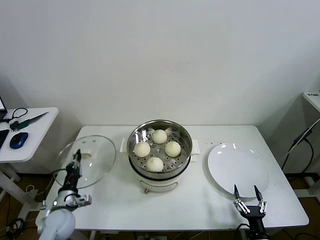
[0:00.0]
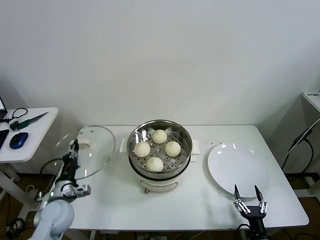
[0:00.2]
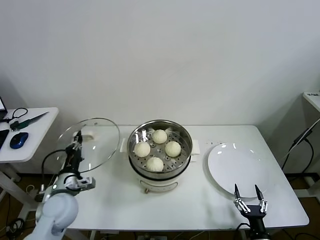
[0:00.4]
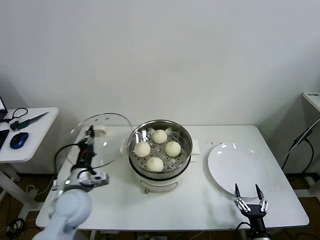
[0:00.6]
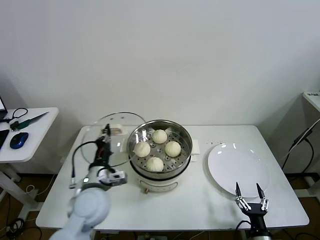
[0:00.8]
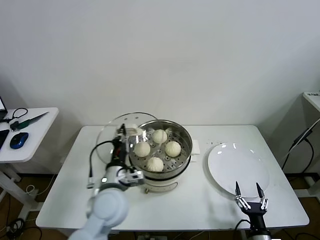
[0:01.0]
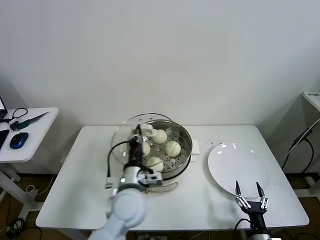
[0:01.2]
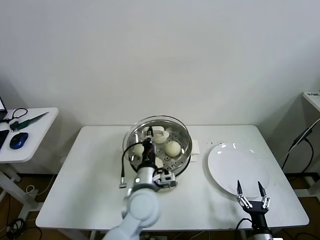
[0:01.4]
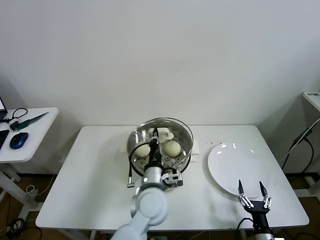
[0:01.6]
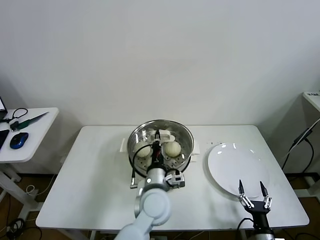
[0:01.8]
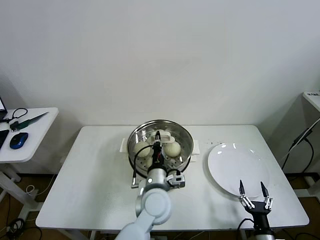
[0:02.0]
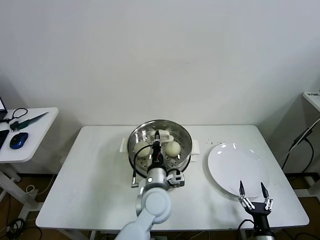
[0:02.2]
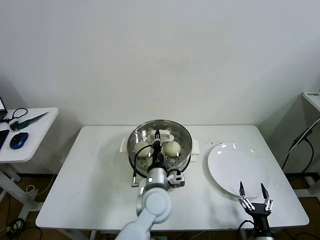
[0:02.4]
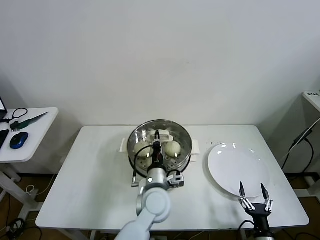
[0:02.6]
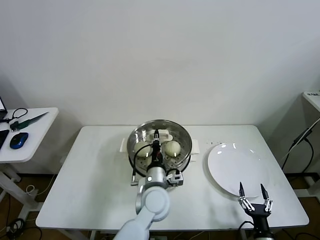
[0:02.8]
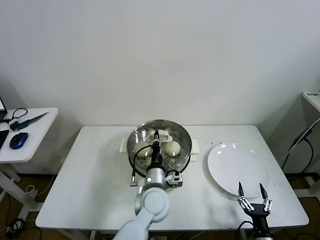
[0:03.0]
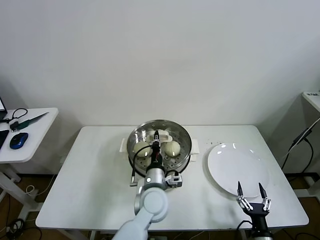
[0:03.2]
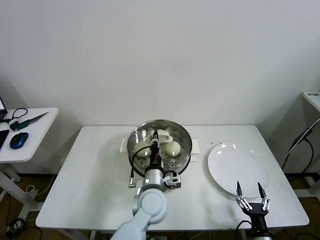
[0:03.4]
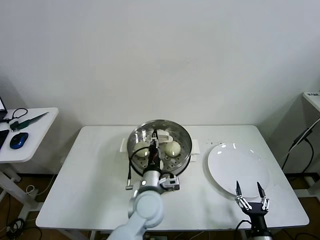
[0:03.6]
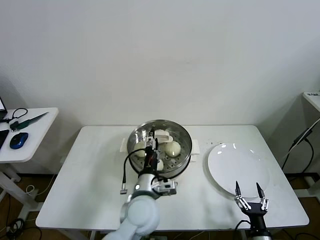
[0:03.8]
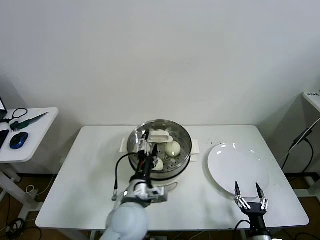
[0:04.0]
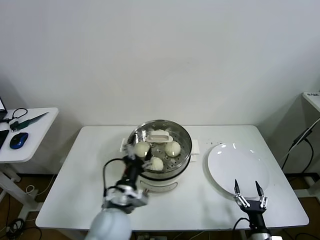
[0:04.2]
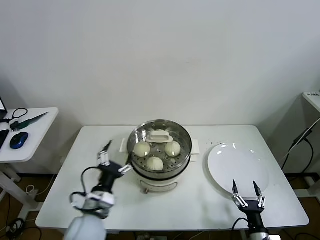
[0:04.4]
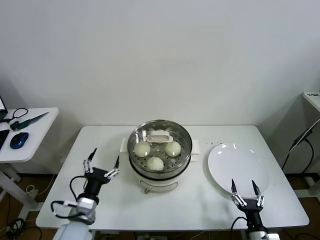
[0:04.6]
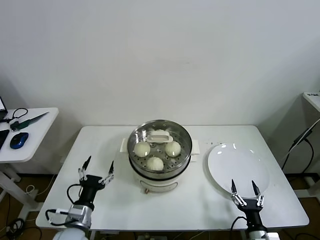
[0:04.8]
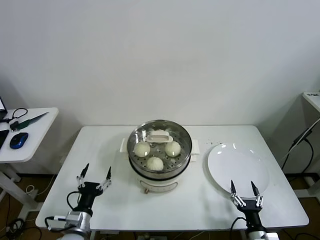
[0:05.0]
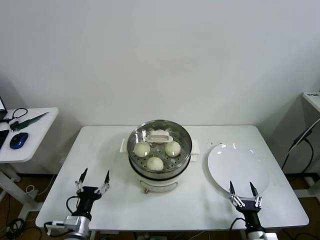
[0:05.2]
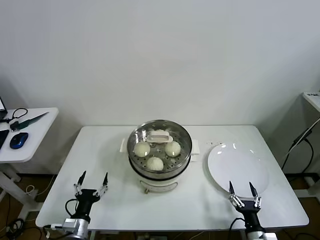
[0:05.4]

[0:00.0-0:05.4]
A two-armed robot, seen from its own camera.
Task of the whole recording: take steamed baozi put them in steamer then cover it.
Step, 0:00.0 to 0:03.4: Place the pot lid on the steamer with left gripper.
0:00.0 to 0:01.4: The left gripper goes roughly 35 cm to the right and upward.
0:01.4 to 0:02.8: The left gripper changes place by about 5 cm.
0:02.8 to 0:04.0: The left gripper goes approximately 10 cm backward and to the left, and opens its fingers.
0:04.0 to 0:05.4: The left gripper is displaced to the left and downward by about 25 cm.

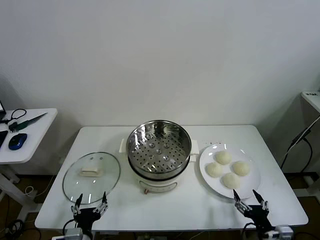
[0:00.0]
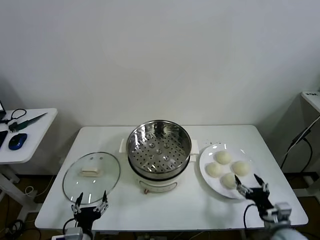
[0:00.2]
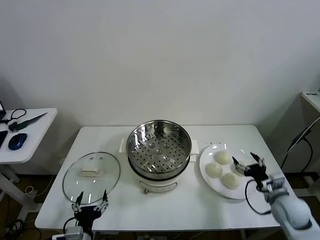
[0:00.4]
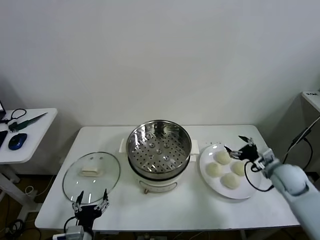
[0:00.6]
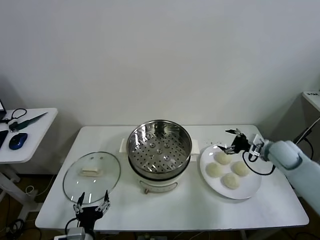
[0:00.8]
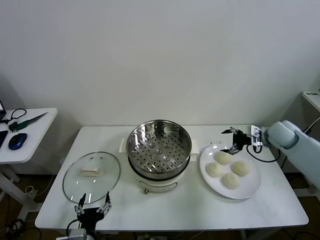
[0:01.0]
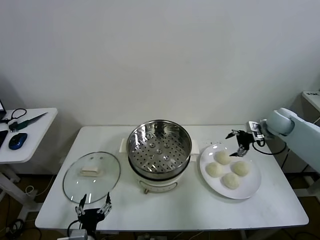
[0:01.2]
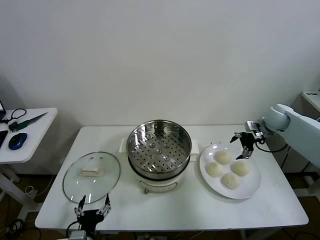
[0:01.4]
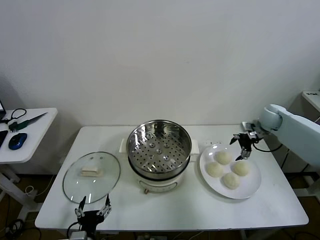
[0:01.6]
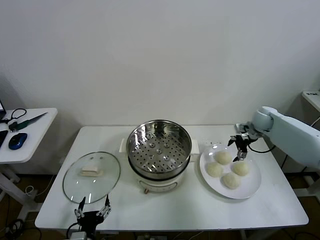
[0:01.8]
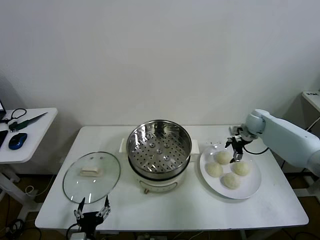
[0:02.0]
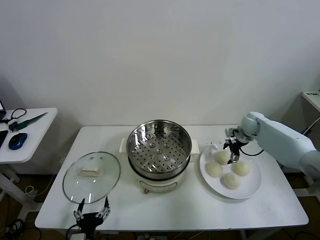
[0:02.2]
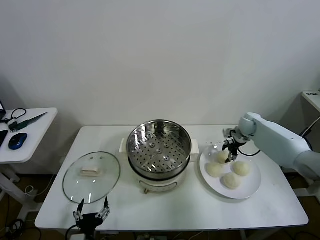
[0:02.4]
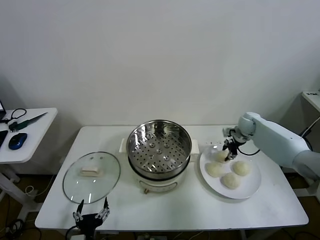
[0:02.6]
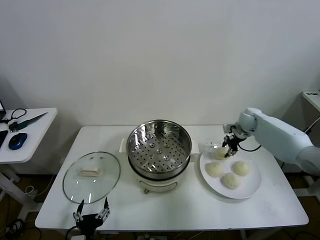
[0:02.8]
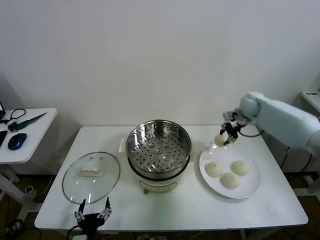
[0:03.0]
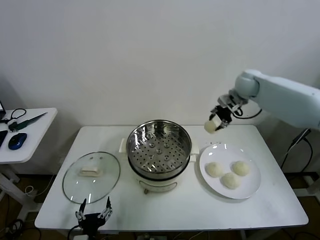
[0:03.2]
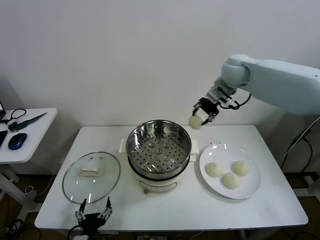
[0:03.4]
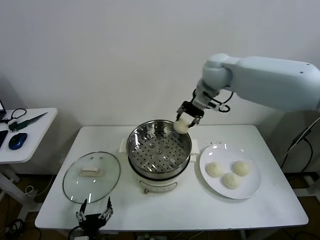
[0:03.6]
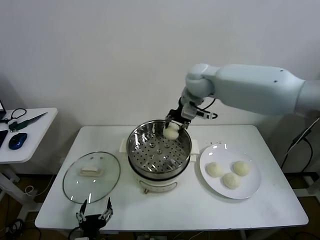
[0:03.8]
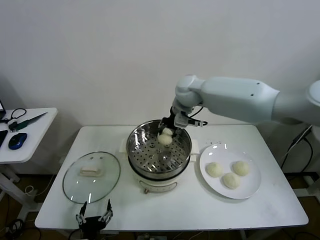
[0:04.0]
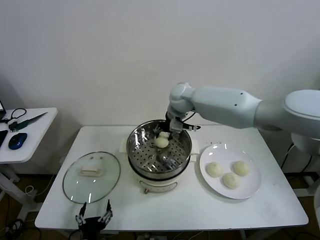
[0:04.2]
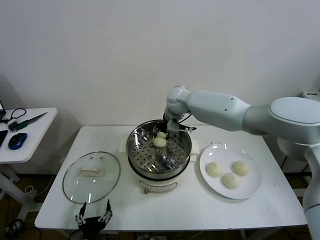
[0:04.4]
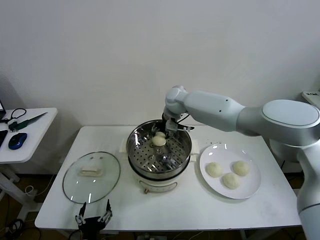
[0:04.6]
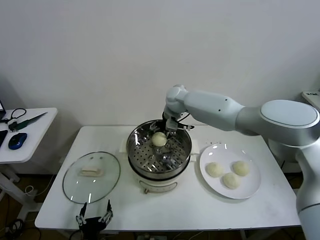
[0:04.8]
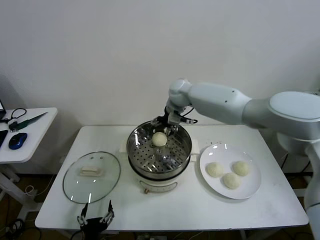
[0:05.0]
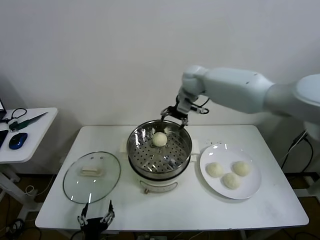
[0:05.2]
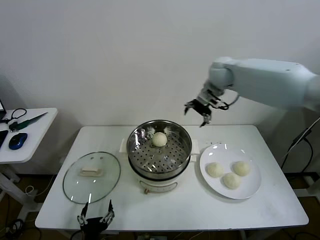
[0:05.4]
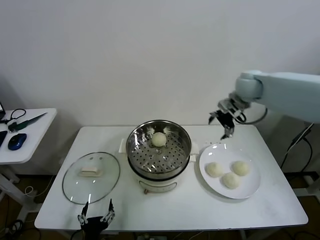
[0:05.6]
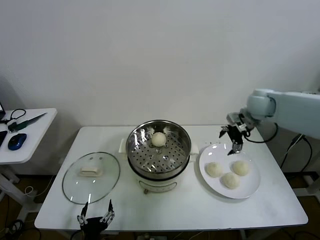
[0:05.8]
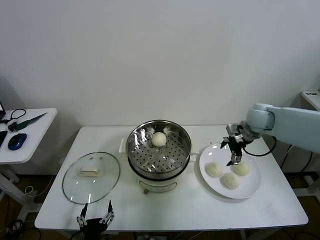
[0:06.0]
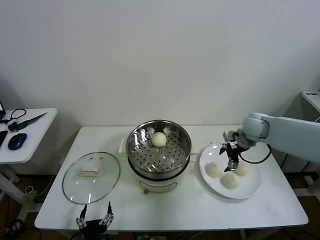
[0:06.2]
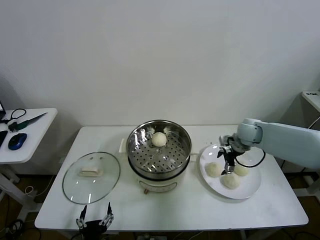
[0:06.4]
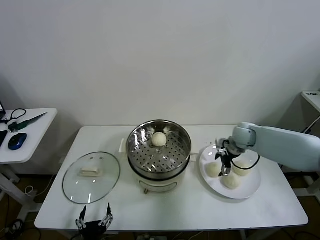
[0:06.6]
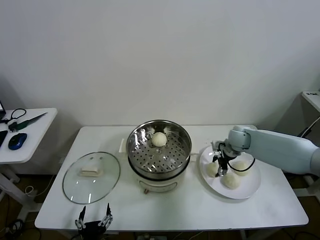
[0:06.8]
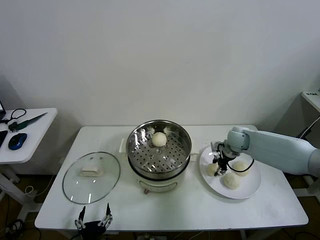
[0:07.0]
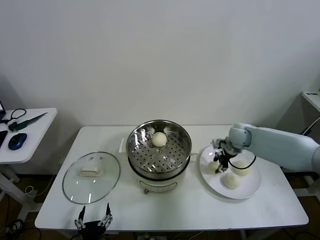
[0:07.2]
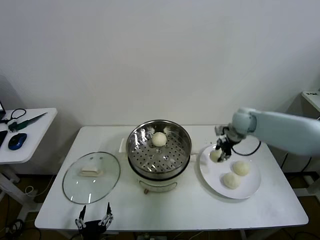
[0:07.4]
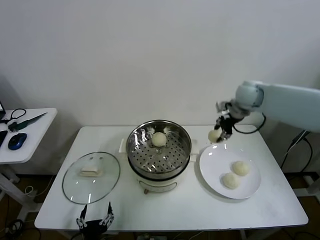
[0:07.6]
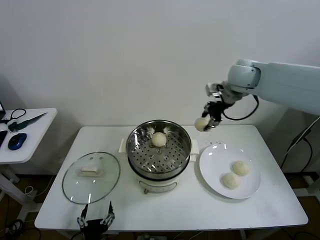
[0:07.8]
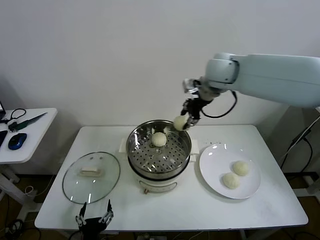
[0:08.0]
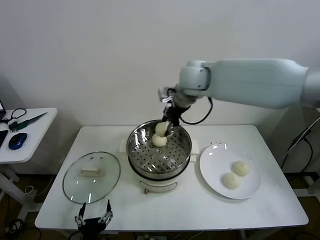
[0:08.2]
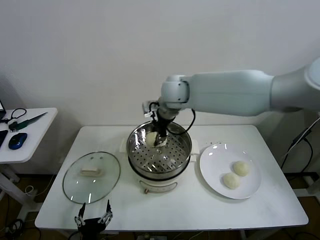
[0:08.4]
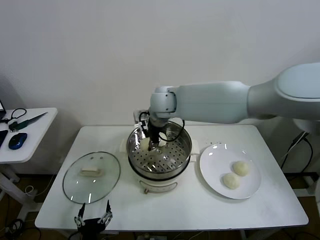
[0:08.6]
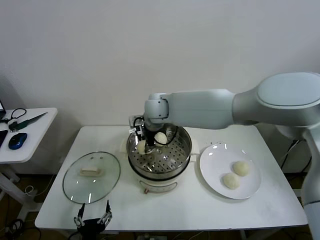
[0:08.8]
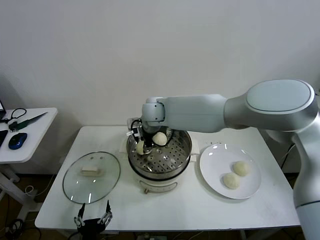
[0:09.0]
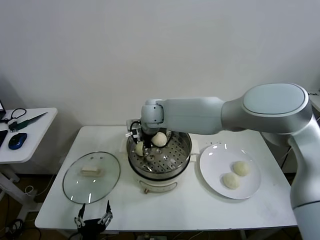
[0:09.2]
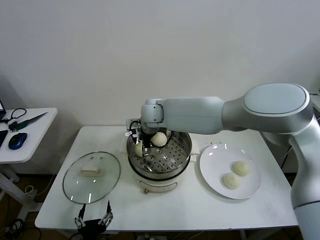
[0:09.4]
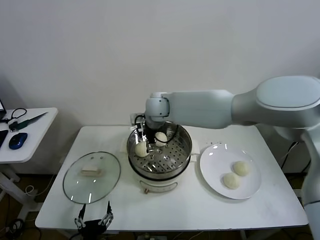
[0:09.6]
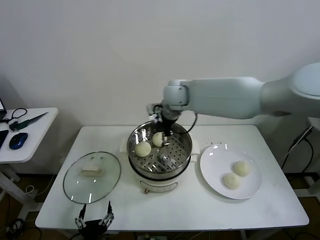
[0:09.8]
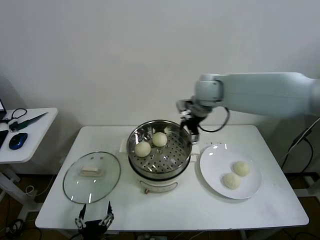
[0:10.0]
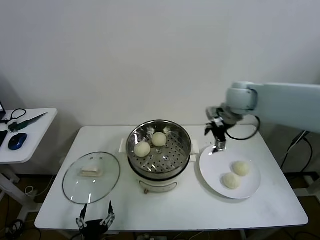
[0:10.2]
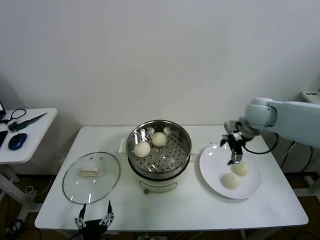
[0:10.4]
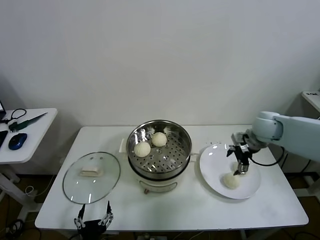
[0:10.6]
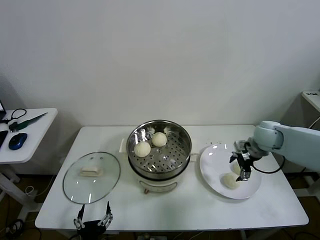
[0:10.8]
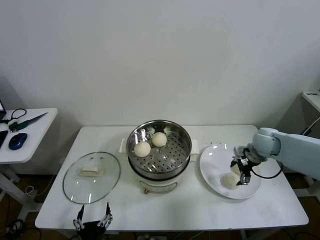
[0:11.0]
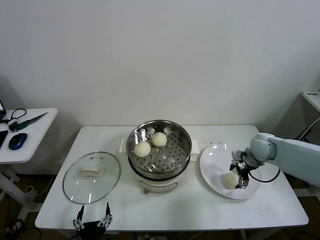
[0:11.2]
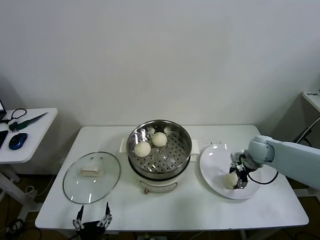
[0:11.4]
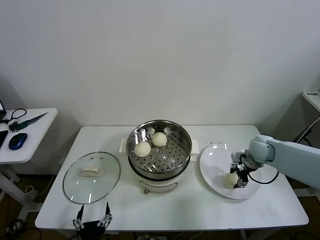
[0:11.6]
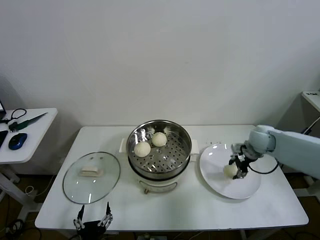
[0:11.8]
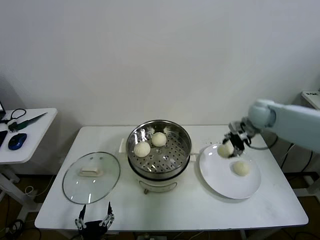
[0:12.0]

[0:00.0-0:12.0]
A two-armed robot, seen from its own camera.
Task of the whole recording: take steamed baozi put them in steamer then cover it.
Step, 0:00.0 to 0:02.6: Grasp the baozi in the plate with right gripper.
Step, 0:02.8 to 0:04.8: Place the baozi on the steamer with right gripper.
Step, 0:05.0 to 0:07.0: Grasp the baozi in the plate with right gripper.
Step, 0:07.2 to 0:09.4: Place the baozi on the steamer with right gripper.
Step, 0:09.6 to 0:11.4: Grasp the baozi in the plate with right gripper.
0:01.6 to 0:03.0: The right gripper is displaced upward and to the left by about 10 cm, and closes up.
0:03.0 to 0:04.4: The right gripper is displaced to the left by some 25 cm.
0:04.4 to 0:06.0: The right gripper heads to the right, covering roughly 30 cm, and opens.
0:06.0 to 0:07.6: The right gripper moves upward and to the left, some 15 cm, and closes up.
0:07.6 to 0:09.0: The right gripper moves to the left, about 30 cm.
0:09.0 to 0:10.4: The right gripper is displaced to the right by roughly 35 cm, and opens its fingers.
0:10.4 to 0:12.0: The right gripper moves roughly 15 cm downward and comes back, and closes its fingers.

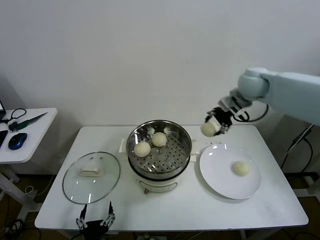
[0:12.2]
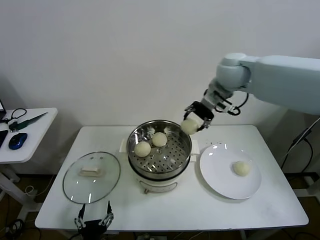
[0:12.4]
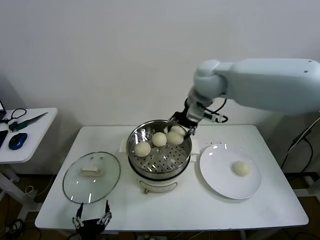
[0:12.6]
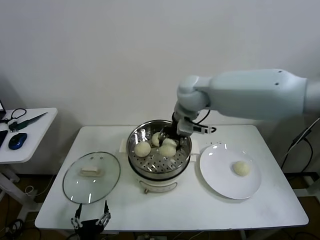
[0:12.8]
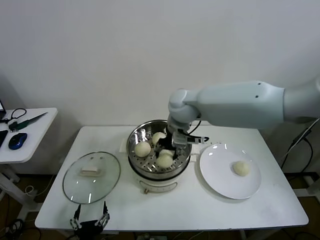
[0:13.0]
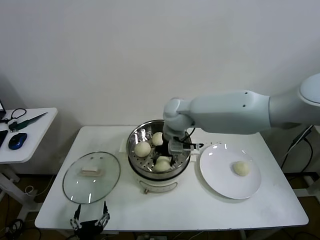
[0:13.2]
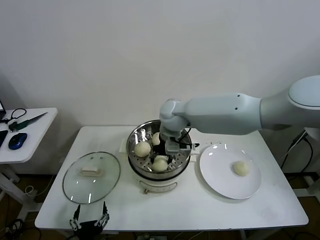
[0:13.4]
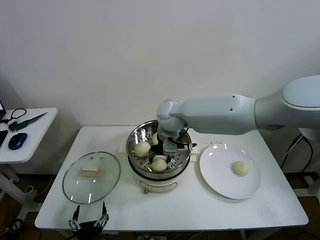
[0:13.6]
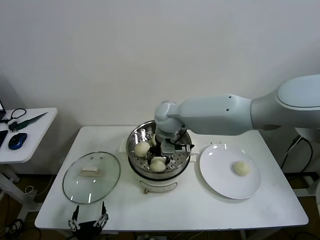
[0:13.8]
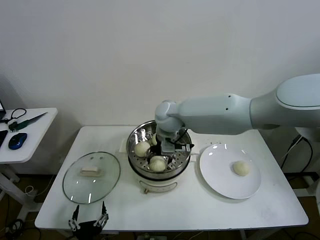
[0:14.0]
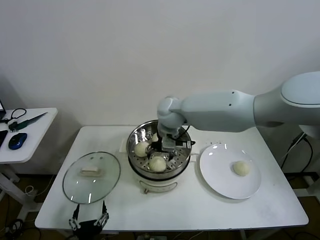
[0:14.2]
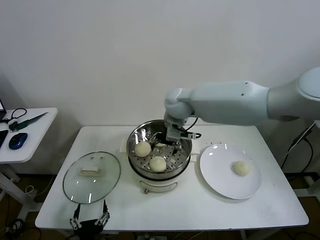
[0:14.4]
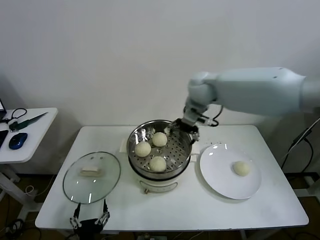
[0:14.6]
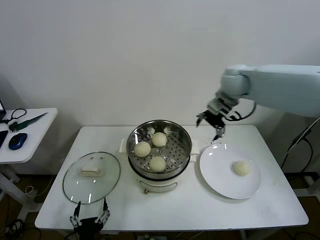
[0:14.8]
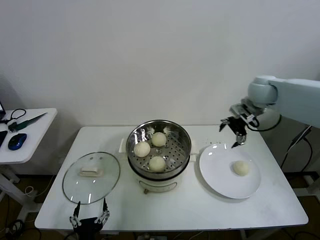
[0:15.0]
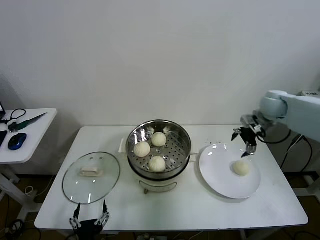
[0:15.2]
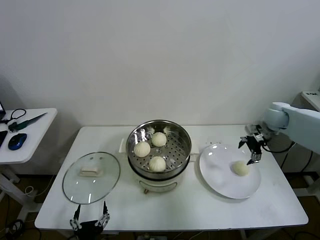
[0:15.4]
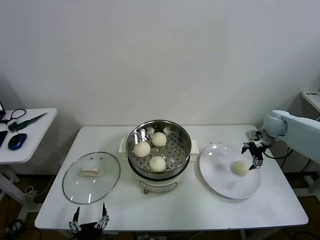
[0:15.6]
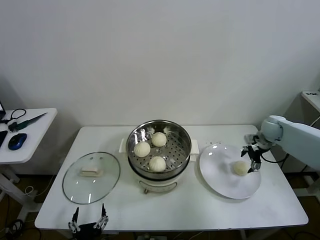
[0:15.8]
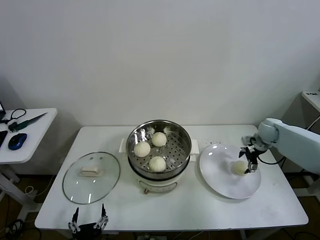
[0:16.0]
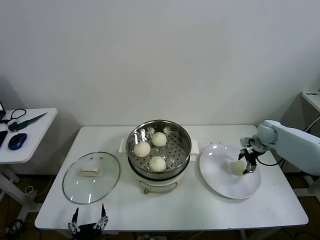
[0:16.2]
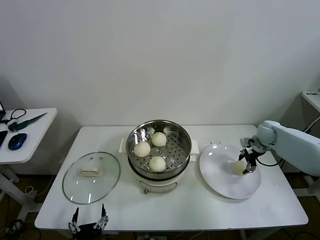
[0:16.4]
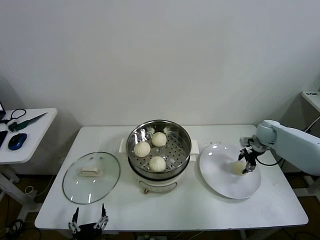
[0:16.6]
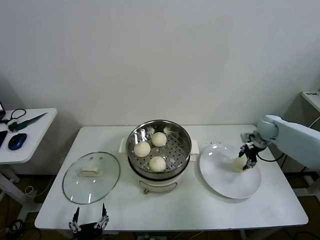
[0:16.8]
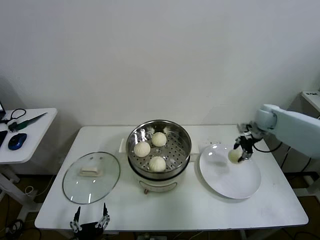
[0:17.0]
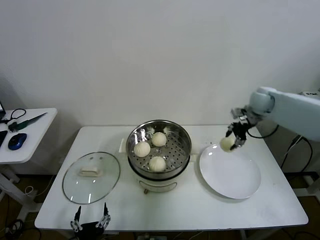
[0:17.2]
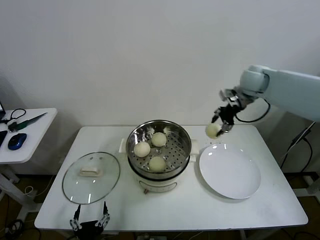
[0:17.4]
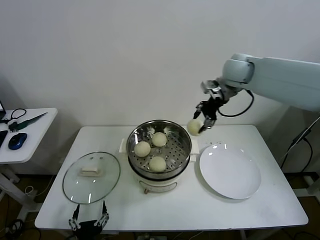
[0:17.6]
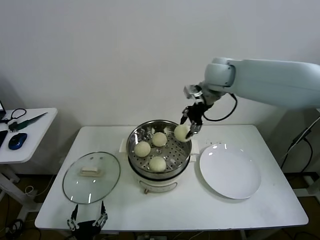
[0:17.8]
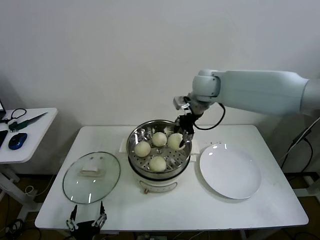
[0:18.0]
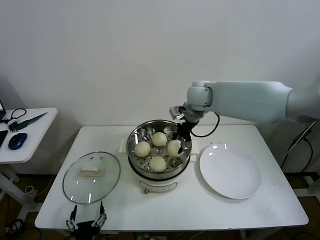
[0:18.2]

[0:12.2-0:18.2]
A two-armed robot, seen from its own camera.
Task of the whole recording: take steamed baozi put them in steamer then cover it.
Step, 0:12.2 to 0:14.0: Place the baozi on the steamer with right gripper.
Step, 0:14.2 to 0:16.6: Grasp the baozi in the plate with right gripper.
0:12.2 to 0:13.8: The right gripper is displaced to the left and downward by roughly 25 cm.
0:13.8 to 0:15.2: The right gripper moves to the right, some 35 cm, and opens its fingers.
0:15.2 to 0:16.6: The right gripper goes about 15 cm downward, and closes its fingers.
0:16.6 to 0:18.2: The right gripper shifts some 35 cm to the left and upward.
